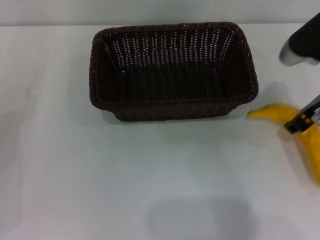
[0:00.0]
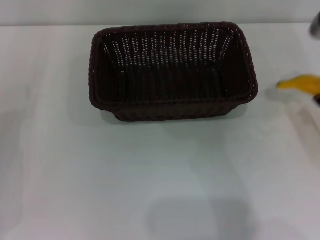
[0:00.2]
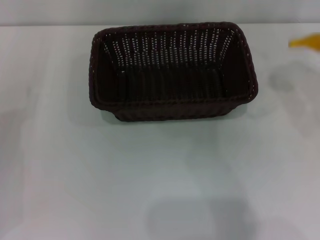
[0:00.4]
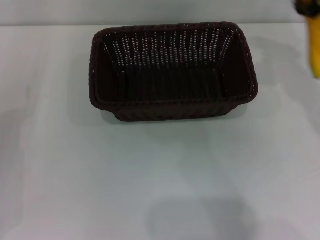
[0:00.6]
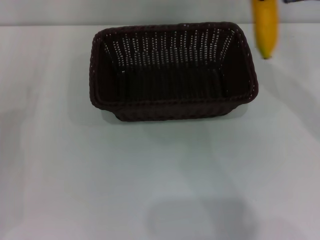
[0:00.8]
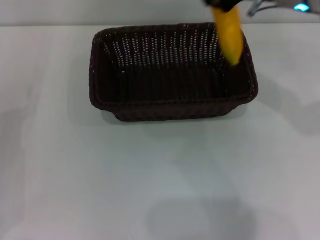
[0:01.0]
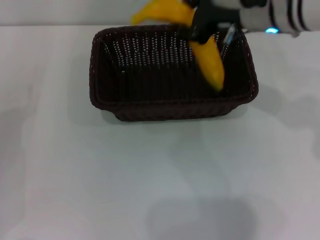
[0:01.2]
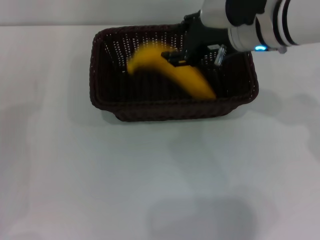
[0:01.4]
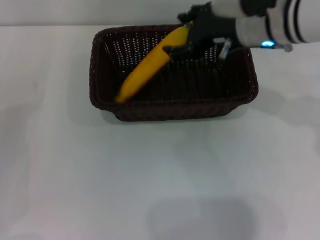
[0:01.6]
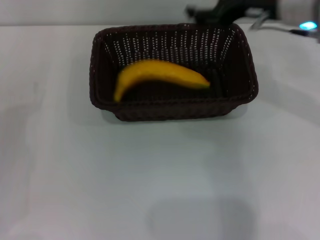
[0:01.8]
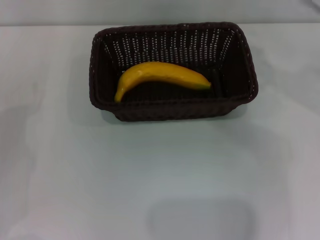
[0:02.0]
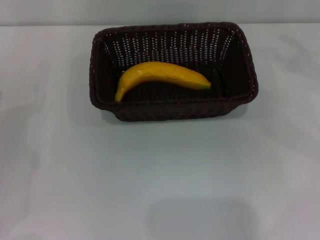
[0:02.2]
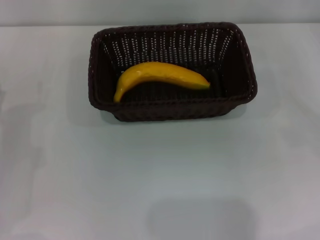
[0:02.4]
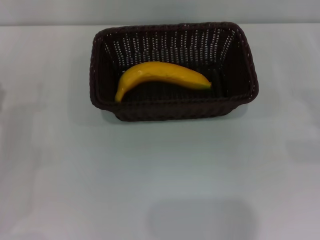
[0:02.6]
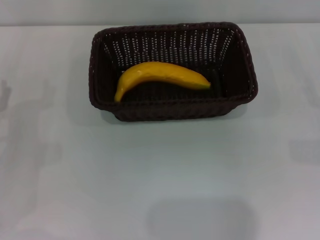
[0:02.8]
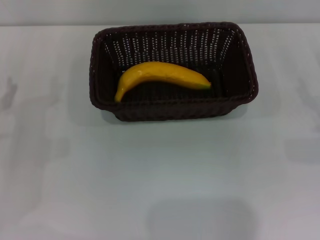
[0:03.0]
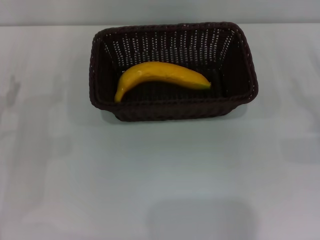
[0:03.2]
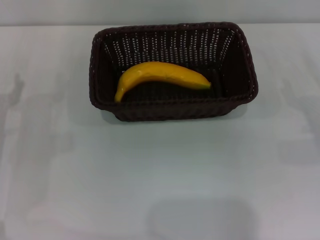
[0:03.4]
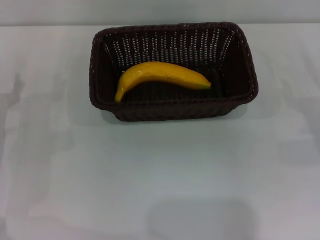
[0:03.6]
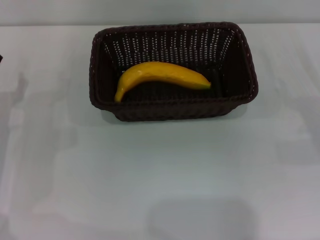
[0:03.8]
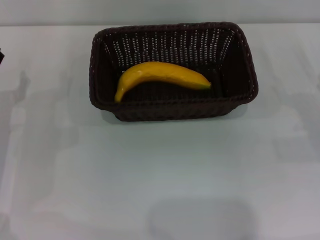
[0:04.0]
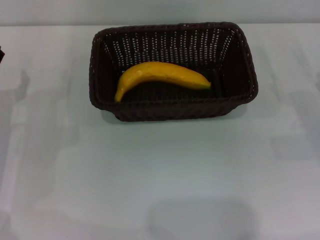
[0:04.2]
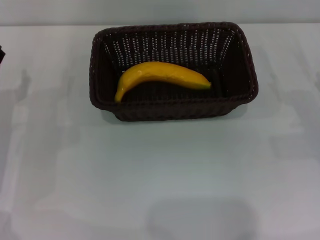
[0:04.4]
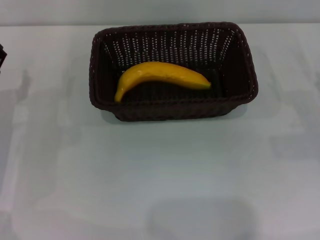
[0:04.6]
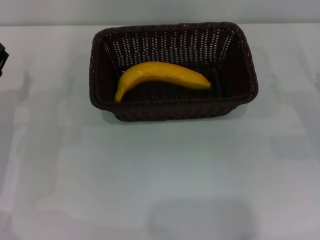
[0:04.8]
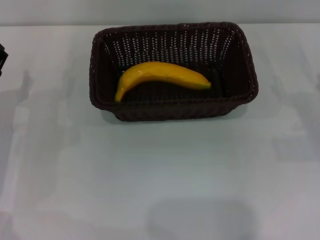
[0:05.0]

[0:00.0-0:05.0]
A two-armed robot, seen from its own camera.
Step, 0:00.2 to 0:01.6: Place the banana into the dark basket with the right gripper.
0:00.0 to 0:01.6: The right gripper heads to the left, covering about 10 cm, and opens its fingers.
0:01.6 to 0:03.4: The right gripper travels to the right, downward and backward by some 30 cm, and opens its fingers.

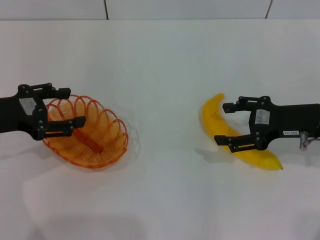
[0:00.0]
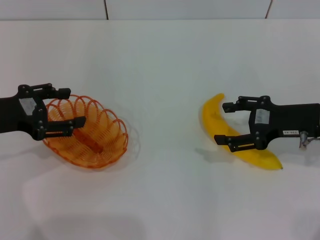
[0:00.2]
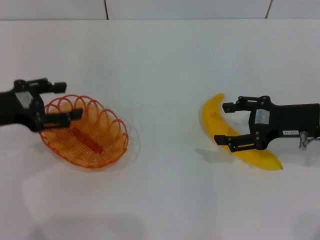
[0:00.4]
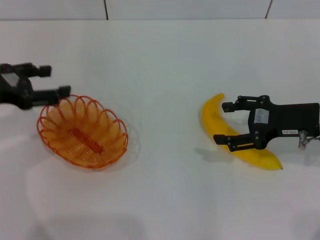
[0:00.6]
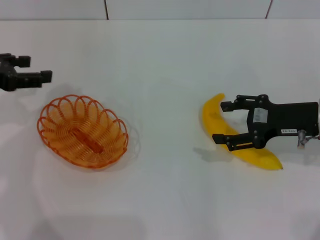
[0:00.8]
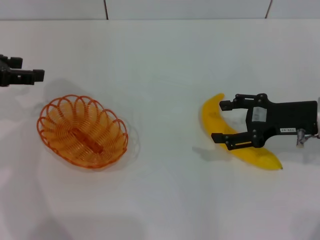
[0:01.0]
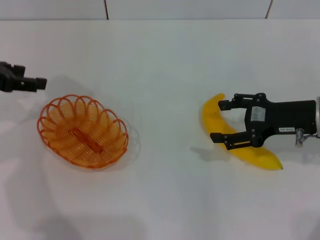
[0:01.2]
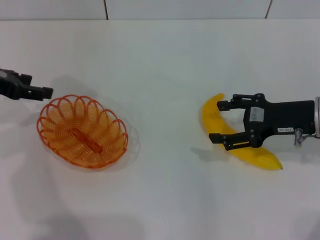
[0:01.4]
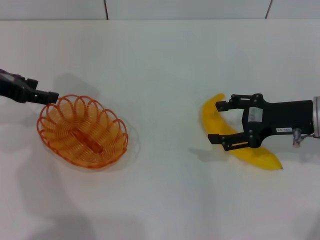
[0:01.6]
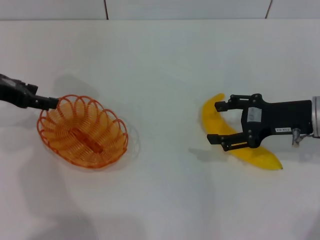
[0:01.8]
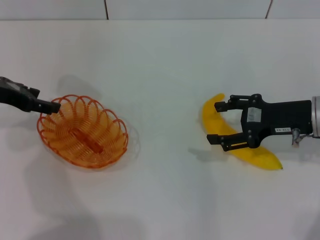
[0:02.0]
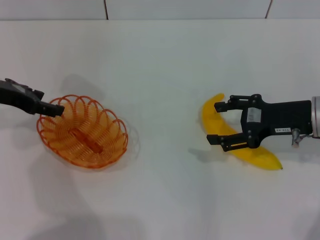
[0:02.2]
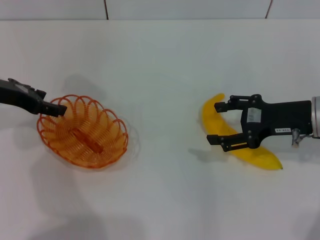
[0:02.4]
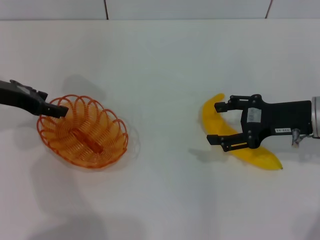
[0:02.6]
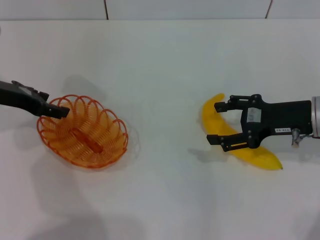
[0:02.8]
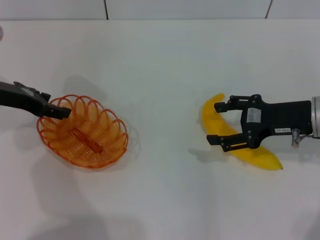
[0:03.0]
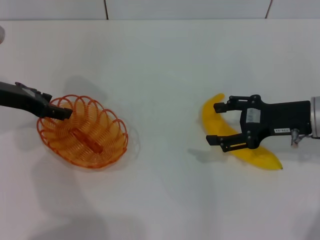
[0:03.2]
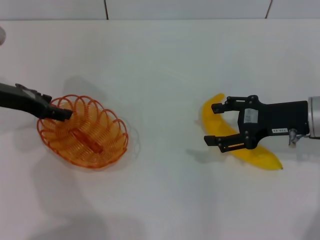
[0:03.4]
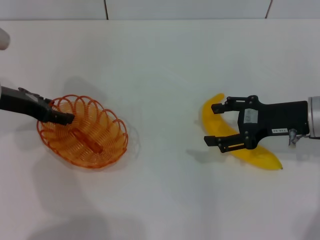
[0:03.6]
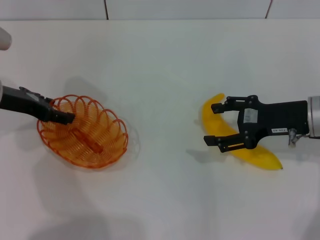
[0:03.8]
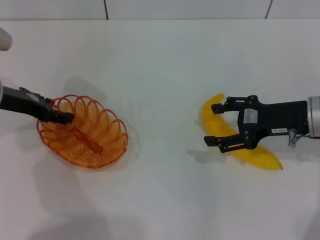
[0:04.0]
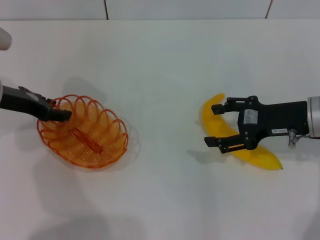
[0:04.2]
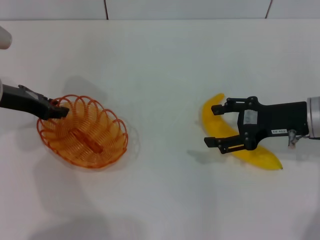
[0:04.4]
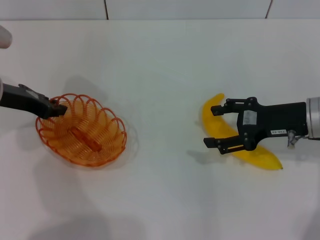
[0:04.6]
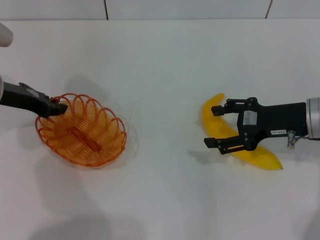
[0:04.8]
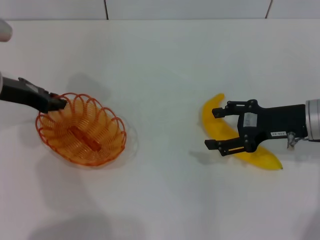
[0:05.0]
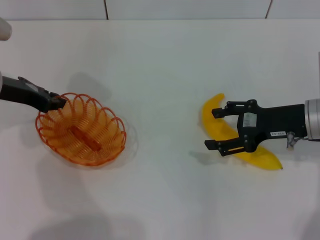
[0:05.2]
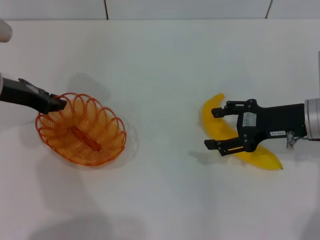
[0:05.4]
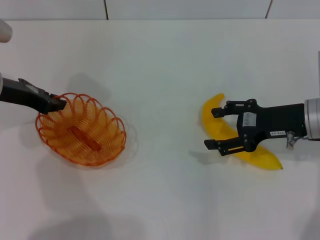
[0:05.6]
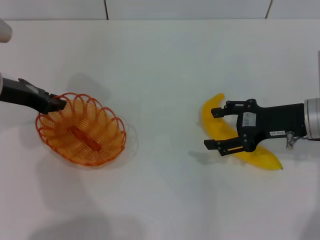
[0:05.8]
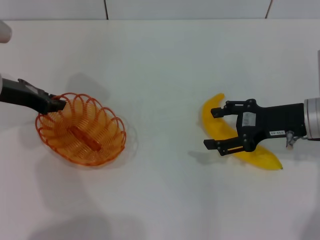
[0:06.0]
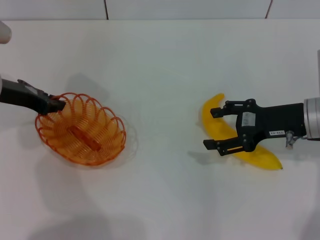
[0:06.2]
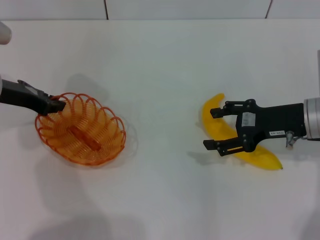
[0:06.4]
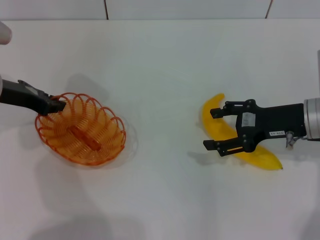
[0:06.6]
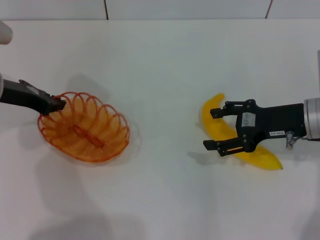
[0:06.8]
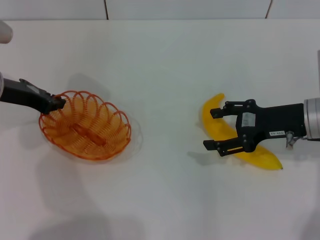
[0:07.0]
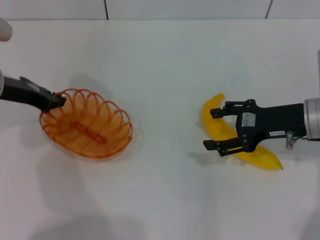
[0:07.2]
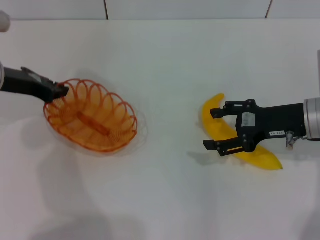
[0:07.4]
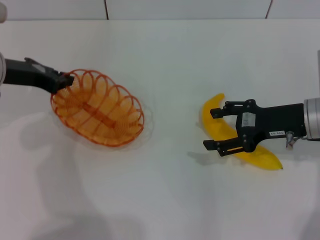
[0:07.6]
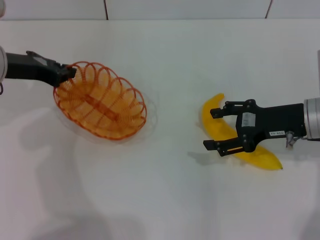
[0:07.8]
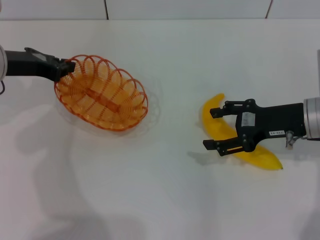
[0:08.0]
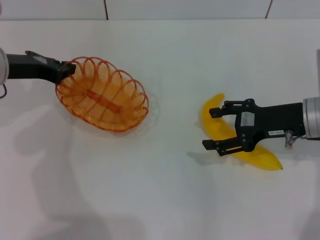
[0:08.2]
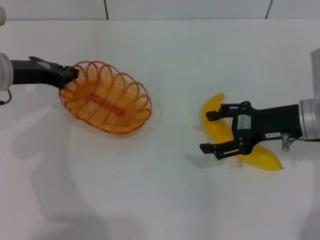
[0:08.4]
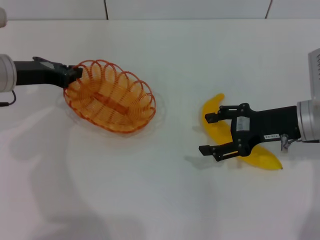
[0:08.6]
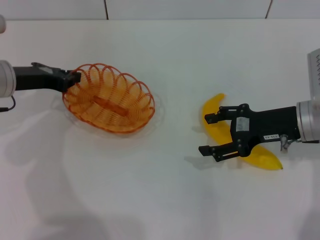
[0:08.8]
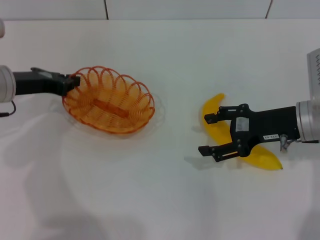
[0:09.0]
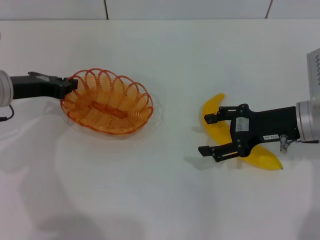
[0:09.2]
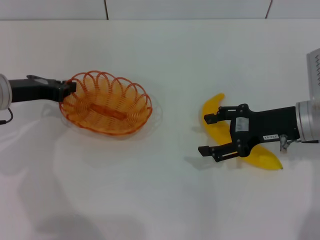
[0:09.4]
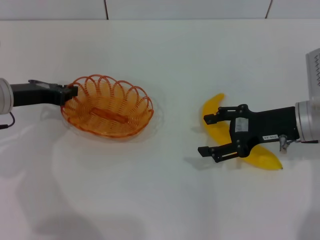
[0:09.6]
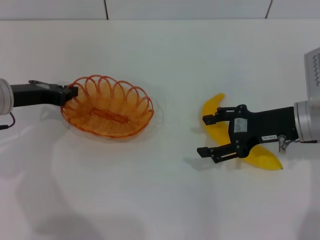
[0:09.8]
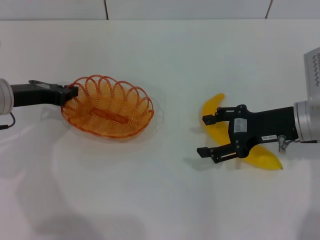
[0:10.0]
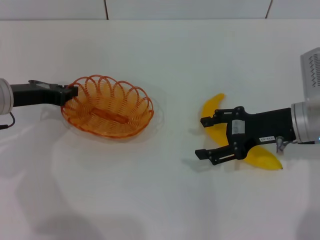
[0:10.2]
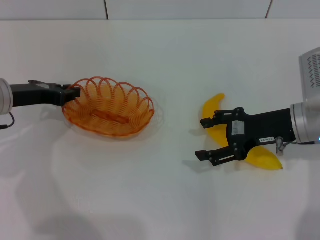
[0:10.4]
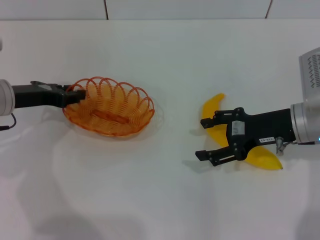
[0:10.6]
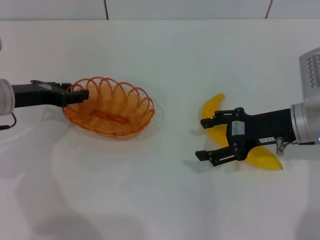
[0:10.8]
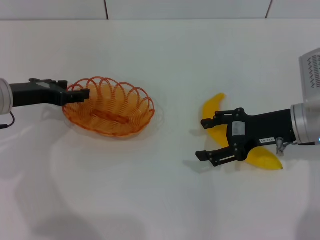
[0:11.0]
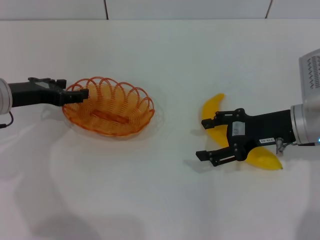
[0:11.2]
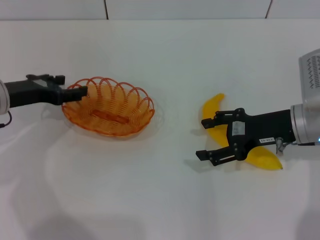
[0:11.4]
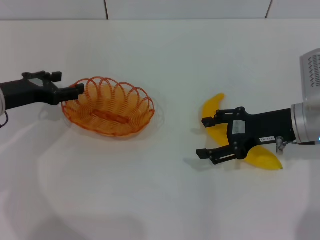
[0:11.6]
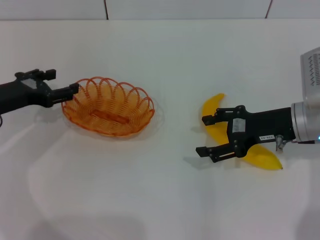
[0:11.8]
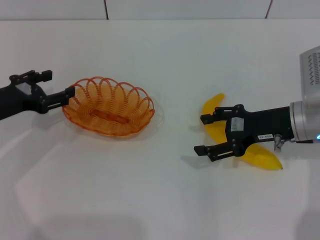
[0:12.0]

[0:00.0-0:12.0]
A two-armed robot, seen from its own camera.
Step, 0:00.0 to 0:07.8: Pick up the basket with the left gripper.
Step, 0:08.0 to 0:12.0: Place the basket in the center of view with the left gripper.
0:00.0 to 0:01.6: The left gripper shifts some 5 cm forward.
0:01.6 to 0:03.0: The grippers make only small movements.
0:03.0 to 0:04.4: Both grippers stay put.
0:04.4 to 0:06.0: The left gripper closes its fingers.
0:06.0 to 0:09.0: The grippers make only small movements.
0:09.0 to 0:10.4: There are only small adjustments of the grippers.
0:10.4 to 0:12.0: The left gripper opens its fingers.

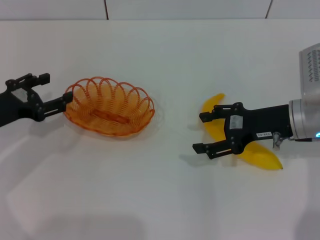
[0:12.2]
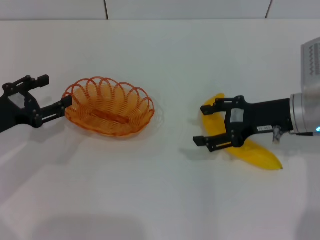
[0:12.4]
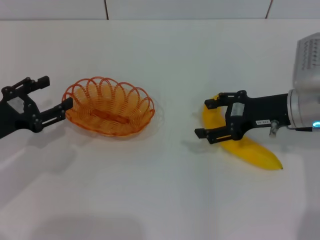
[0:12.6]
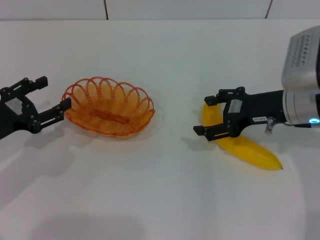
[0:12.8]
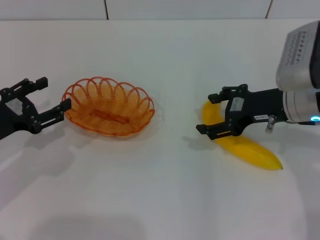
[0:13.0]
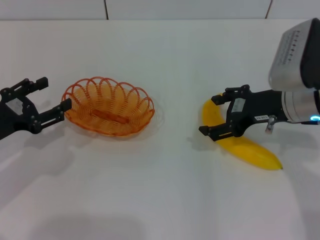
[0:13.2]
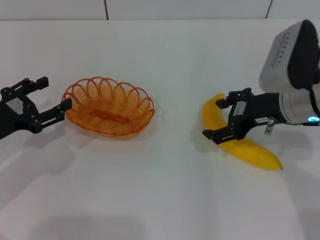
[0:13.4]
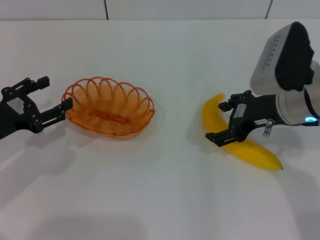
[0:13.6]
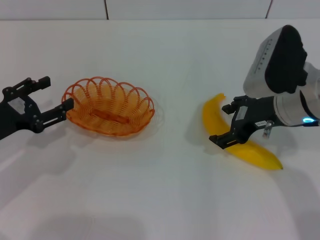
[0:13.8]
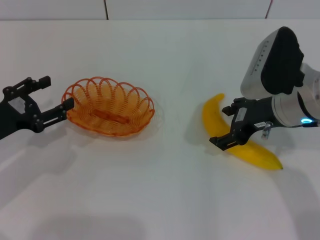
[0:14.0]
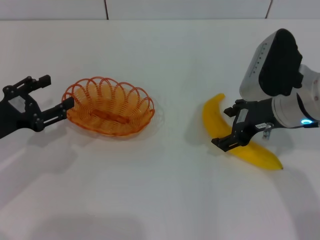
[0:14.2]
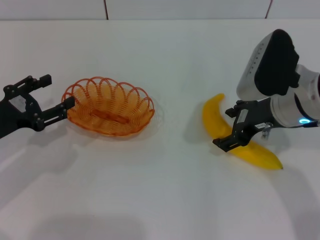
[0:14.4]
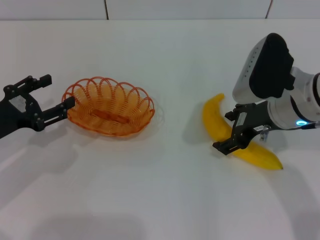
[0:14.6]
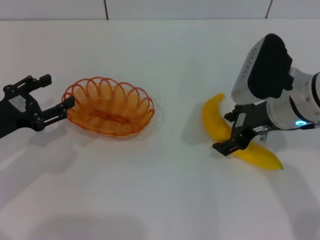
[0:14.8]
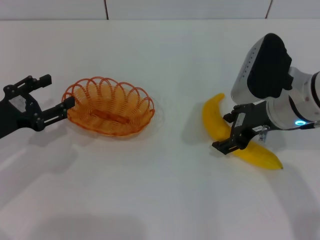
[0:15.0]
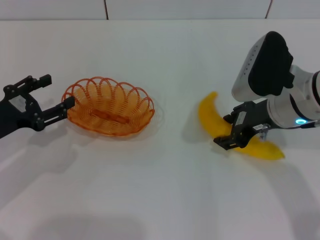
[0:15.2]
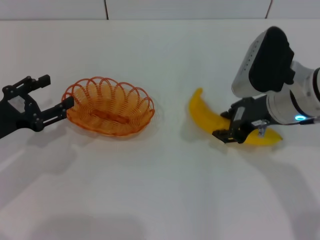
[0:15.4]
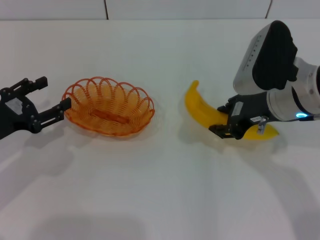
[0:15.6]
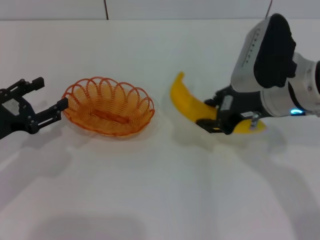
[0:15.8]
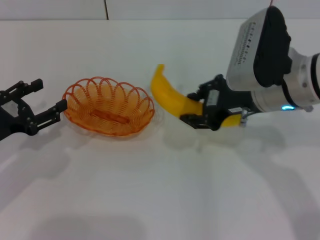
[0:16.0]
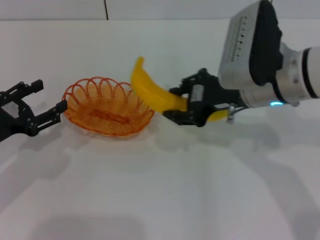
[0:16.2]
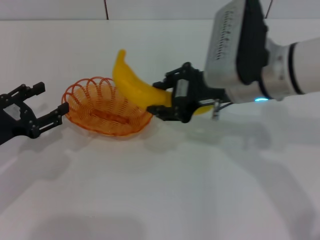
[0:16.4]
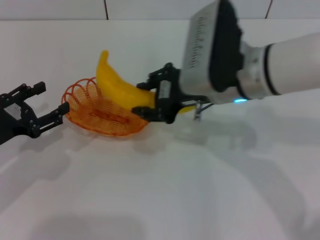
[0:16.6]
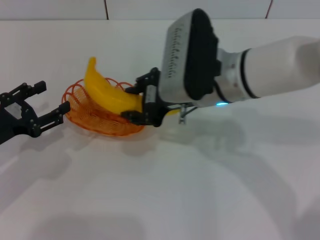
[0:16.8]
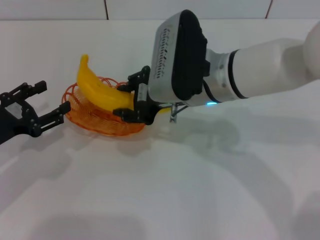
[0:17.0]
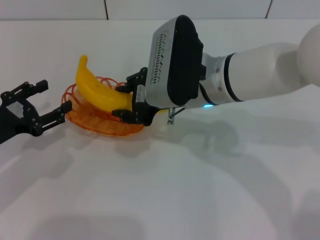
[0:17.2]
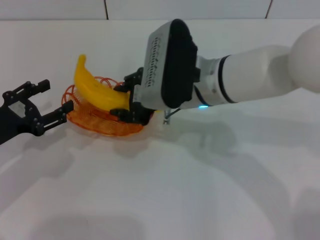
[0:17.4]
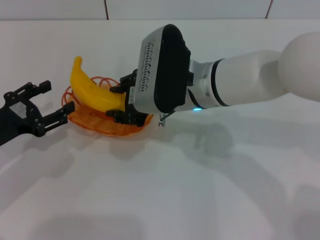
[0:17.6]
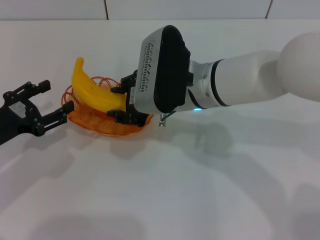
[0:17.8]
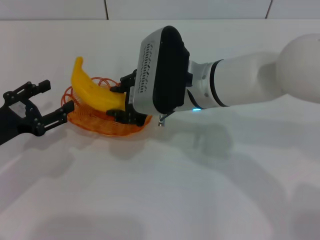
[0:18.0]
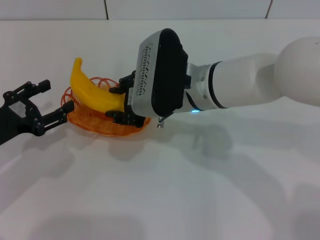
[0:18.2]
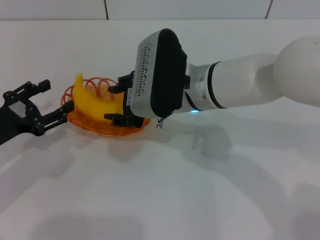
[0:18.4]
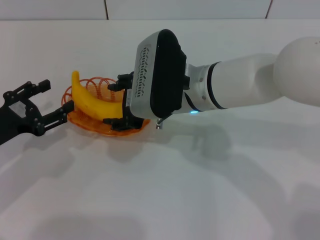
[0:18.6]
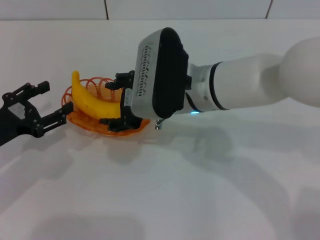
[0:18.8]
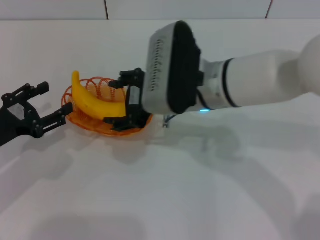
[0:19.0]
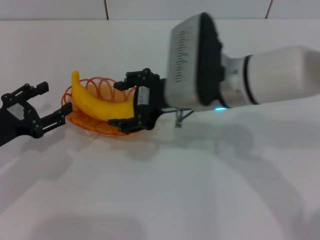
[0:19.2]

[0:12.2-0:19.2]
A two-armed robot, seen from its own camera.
Step, 0:12.2 to 0:15.6: Pick up the banana with the right gripper.
Step, 0:15.8 to 0:19.0: Place the banana into the basket with the right gripper.
0:12.2 to 0:13.6: The right gripper moves roughly 5 cm.
0:13.6 to 0:15.0: The grippers stay close to where they were, moving slightly.
0:15.0 to 0:16.4: The right gripper shifts roughly 5 cm to the left, and closes its fingers.
0:16.4 to 0:17.8: The right gripper moves to the left, roughly 5 cm.
0:17.8 to 0:19.2: The right gripper opens its fingers.
